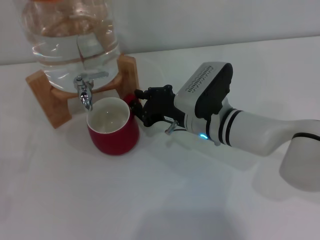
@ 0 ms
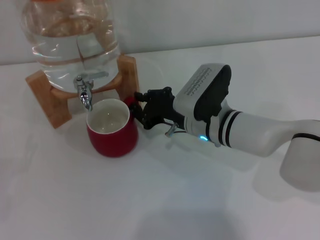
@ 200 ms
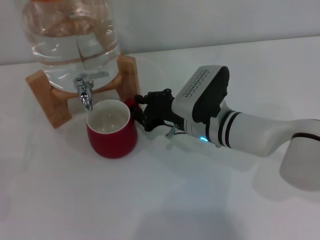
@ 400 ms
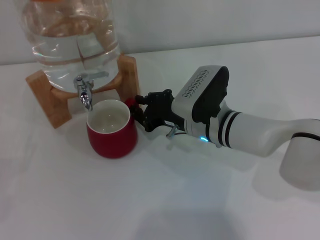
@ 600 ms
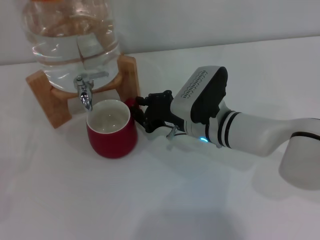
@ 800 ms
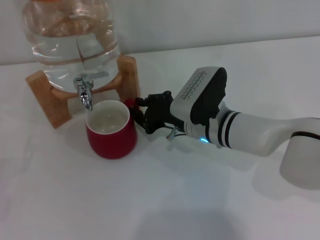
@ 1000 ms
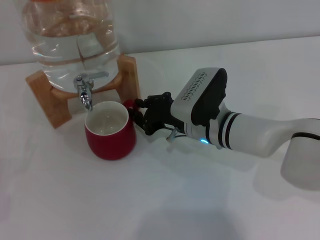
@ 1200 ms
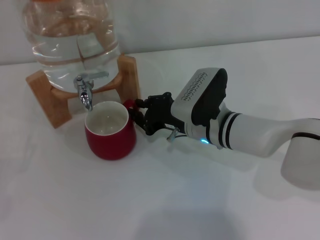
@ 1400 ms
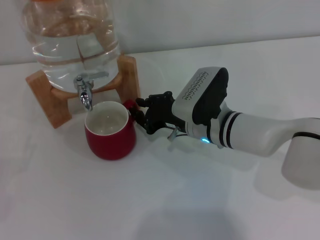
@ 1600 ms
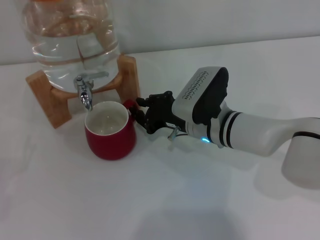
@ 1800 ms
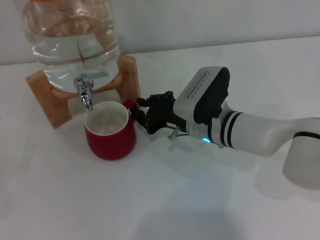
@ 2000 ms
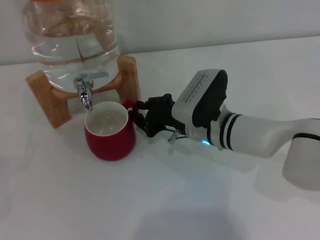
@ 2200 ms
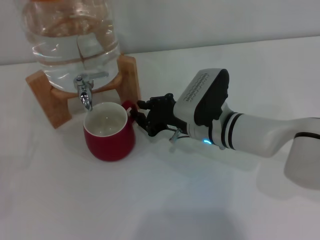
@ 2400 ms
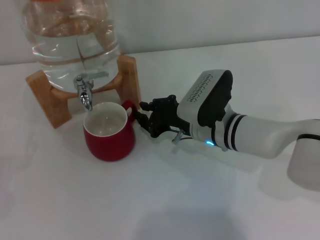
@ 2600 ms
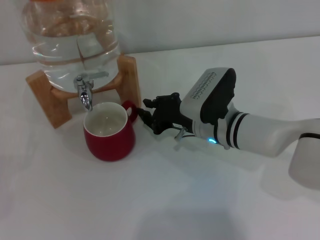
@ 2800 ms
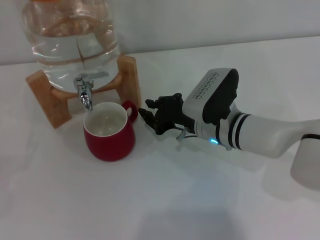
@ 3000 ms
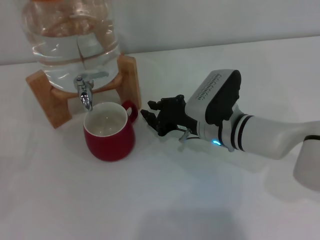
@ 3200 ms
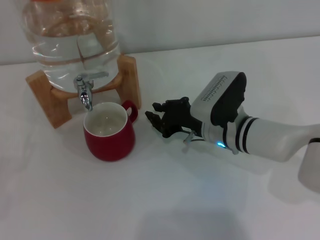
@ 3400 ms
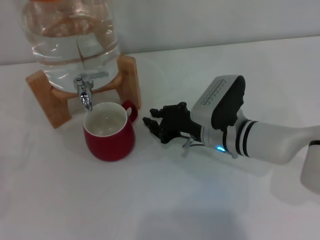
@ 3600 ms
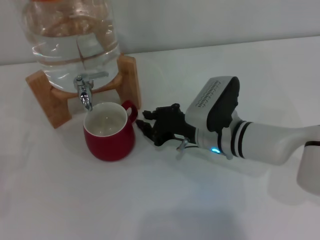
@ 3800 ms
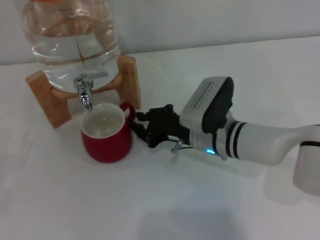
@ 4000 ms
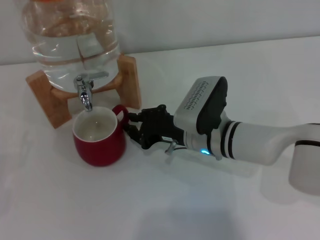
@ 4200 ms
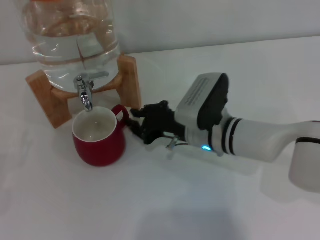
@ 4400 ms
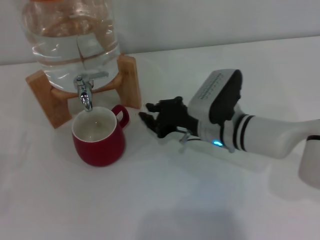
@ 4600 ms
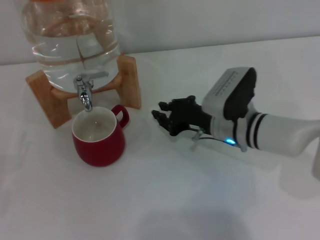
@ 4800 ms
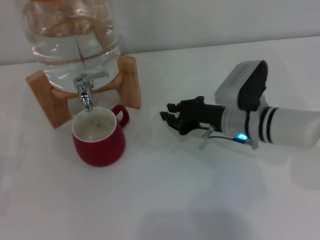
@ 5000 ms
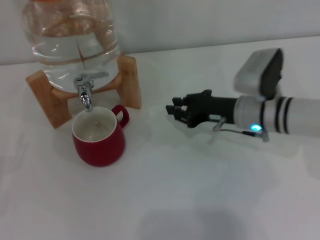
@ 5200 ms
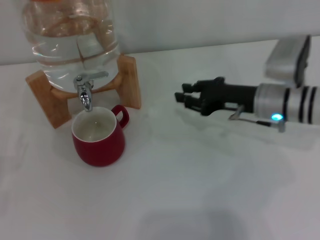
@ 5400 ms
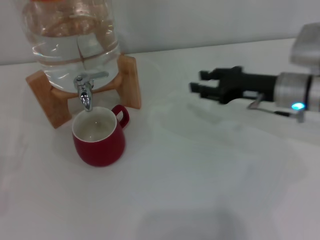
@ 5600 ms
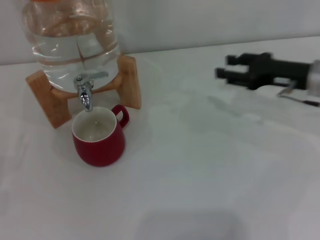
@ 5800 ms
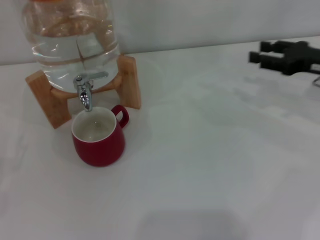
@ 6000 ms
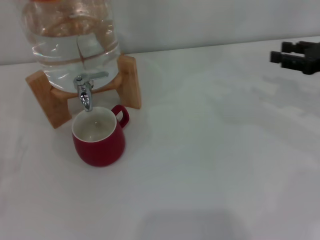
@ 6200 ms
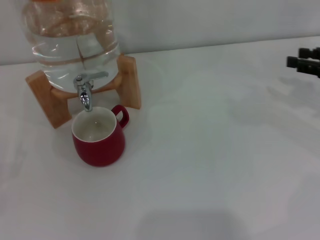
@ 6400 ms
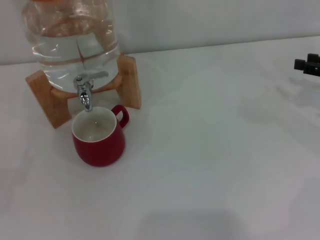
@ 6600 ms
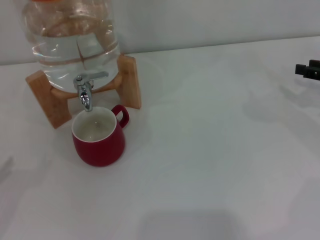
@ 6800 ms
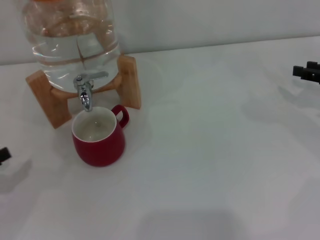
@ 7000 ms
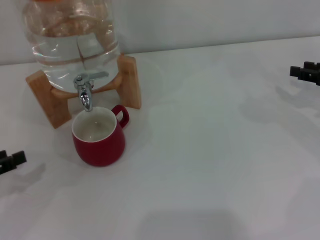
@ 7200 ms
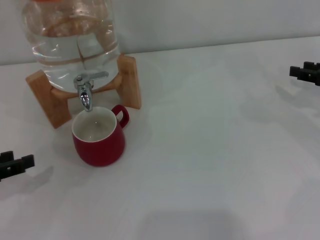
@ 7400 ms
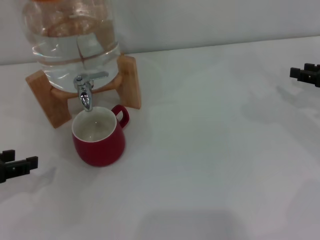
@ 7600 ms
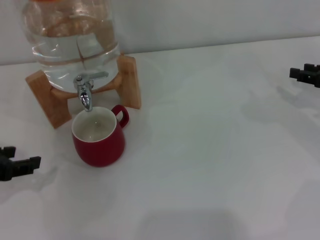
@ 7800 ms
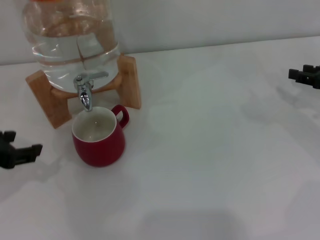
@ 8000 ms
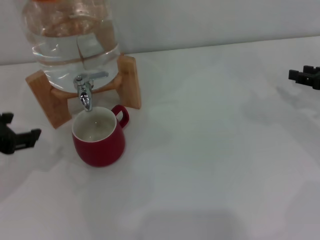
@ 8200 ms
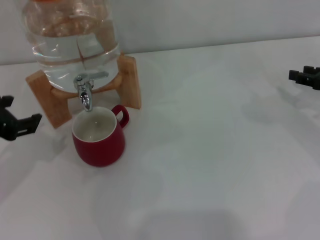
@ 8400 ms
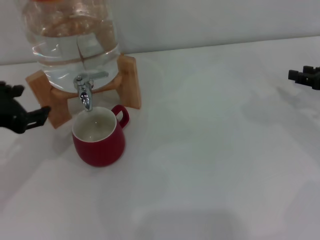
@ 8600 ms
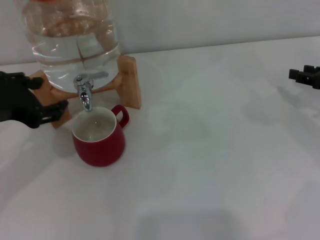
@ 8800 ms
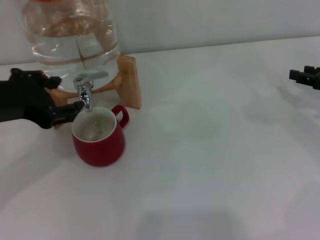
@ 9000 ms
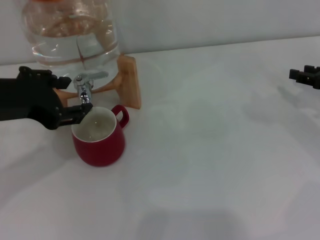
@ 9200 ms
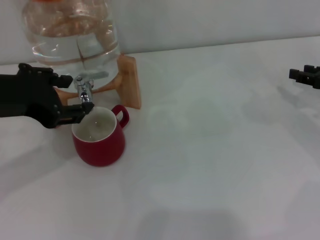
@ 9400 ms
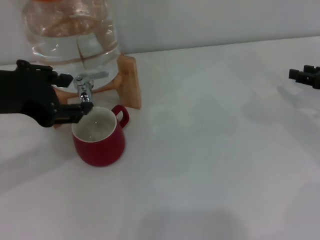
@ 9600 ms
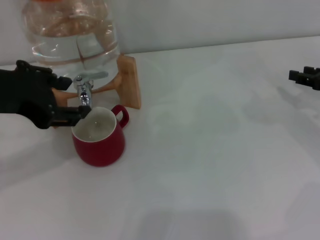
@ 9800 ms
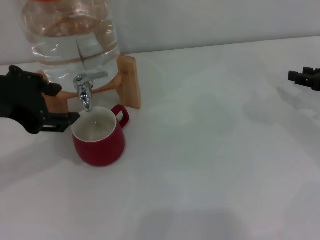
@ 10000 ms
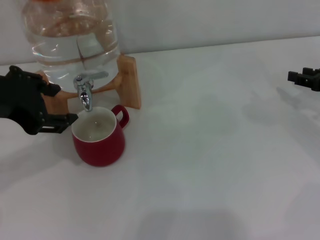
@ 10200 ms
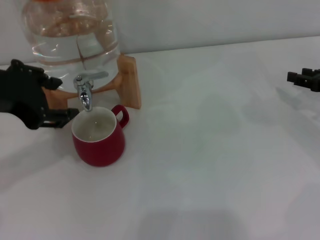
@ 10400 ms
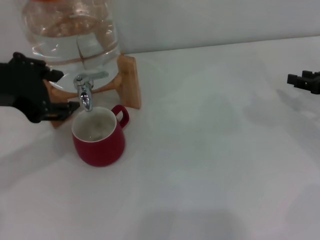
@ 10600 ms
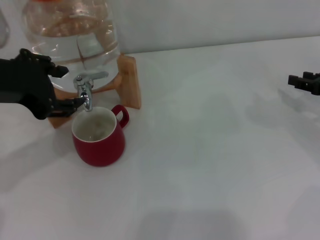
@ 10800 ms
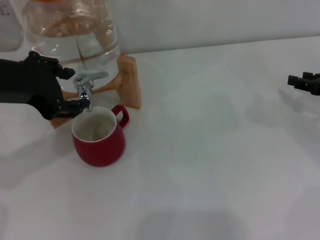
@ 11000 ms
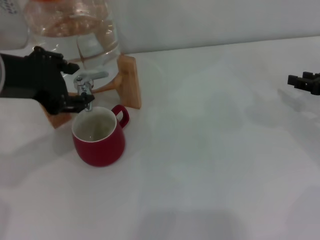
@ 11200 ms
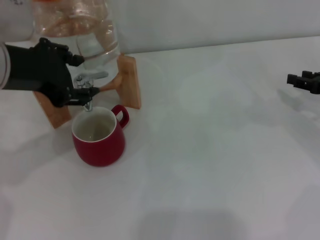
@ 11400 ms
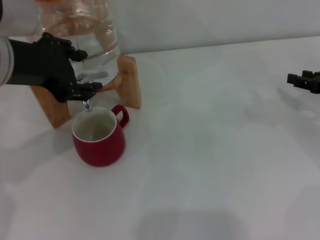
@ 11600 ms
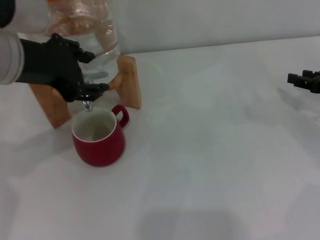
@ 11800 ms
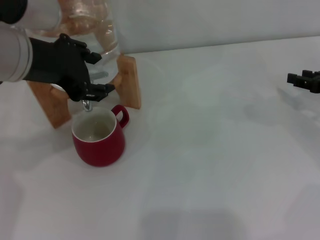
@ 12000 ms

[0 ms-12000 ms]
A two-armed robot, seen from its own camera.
Task of the whole recording: the right gripper pick up the red cup and place it horizontally under the faucet, the left gripper turn on the faucet to fill the cup, and then turn off the faucet.
Step, 0 ms to 4600 ms: Move the cup beneath the water dispenser nozzle with the right gripper.
0 ms to 1600 ms: Both grippers stay put.
1600 ms to 4400 ms: The grippers stay close to where they were, moving slightly.
4400 ms to 6000 ms: The right gripper moves to the right, some 25 cm, and opens up.
6000 ms to 7600 ms: The right gripper shifts by approximately 5 cm. The left gripper heads upward and to the right, covering about 15 cm.
7600 ms to 9000 ms: The left gripper travels to the right and upward by some 15 cm.
9000 ms to 10400 ms: The grippers stay close to where they were, moving slightly.
10400 ms to 12000 ms: The left gripper moves some 5 cm.

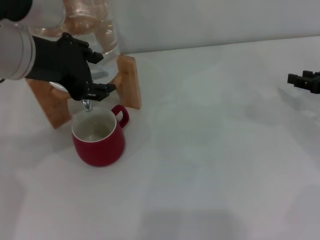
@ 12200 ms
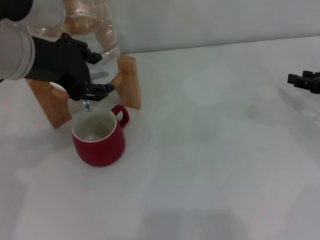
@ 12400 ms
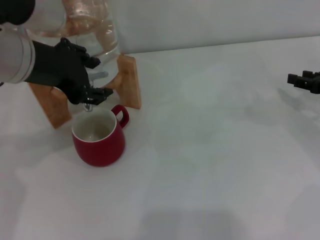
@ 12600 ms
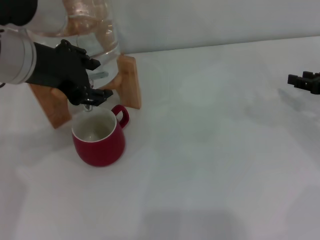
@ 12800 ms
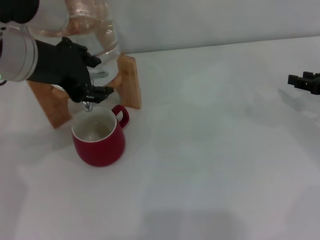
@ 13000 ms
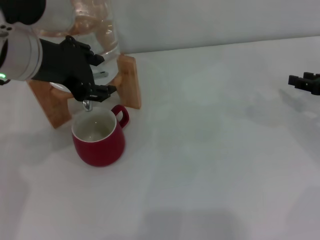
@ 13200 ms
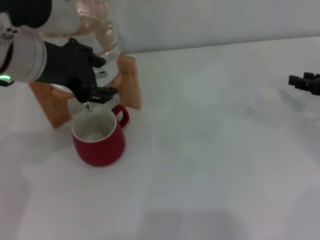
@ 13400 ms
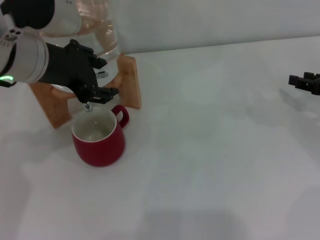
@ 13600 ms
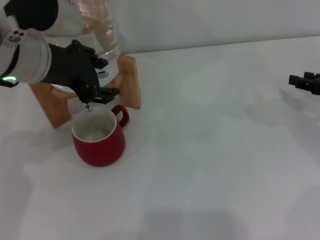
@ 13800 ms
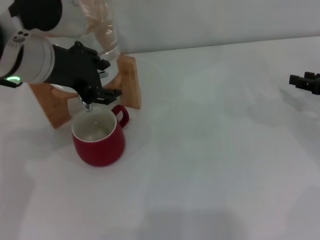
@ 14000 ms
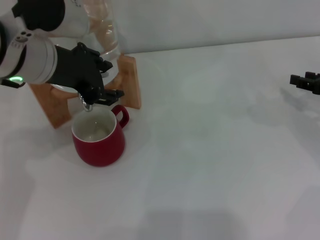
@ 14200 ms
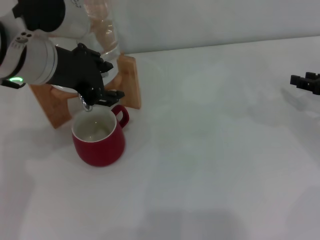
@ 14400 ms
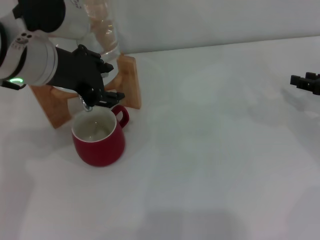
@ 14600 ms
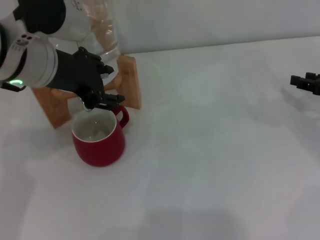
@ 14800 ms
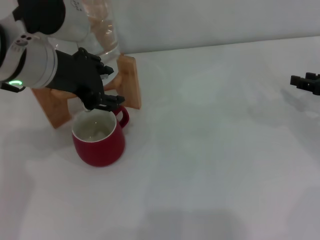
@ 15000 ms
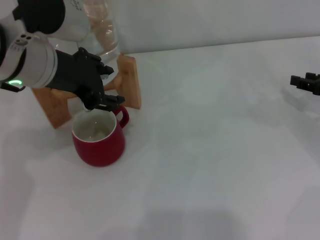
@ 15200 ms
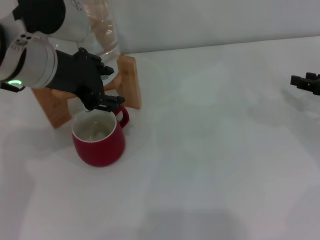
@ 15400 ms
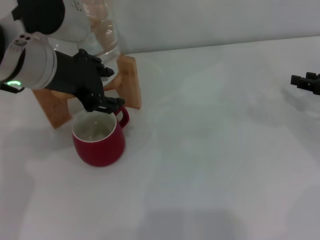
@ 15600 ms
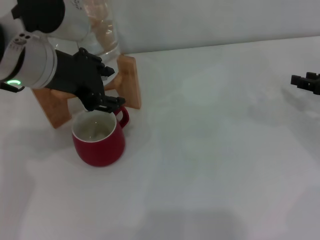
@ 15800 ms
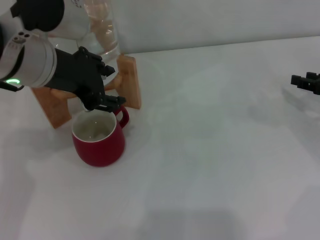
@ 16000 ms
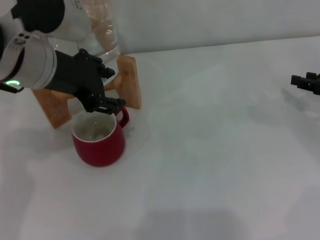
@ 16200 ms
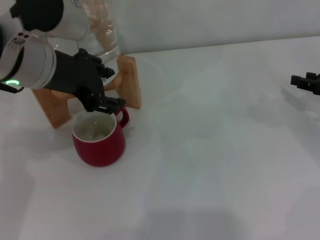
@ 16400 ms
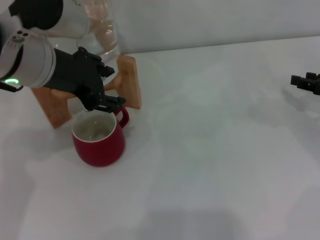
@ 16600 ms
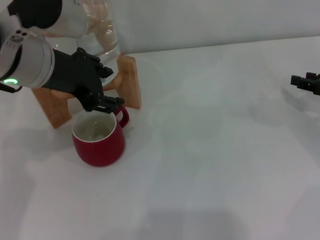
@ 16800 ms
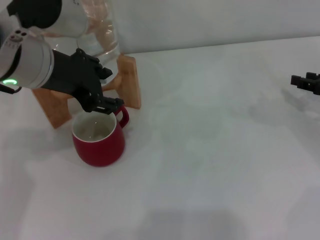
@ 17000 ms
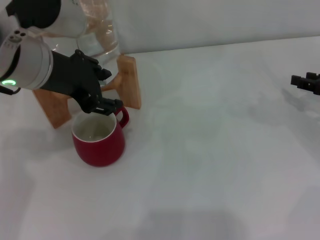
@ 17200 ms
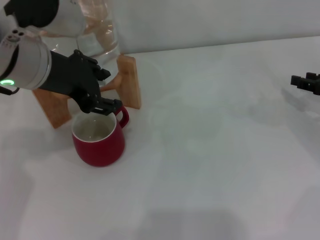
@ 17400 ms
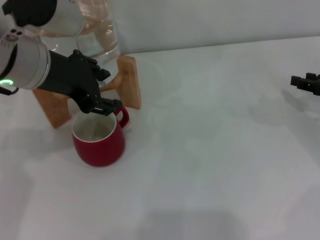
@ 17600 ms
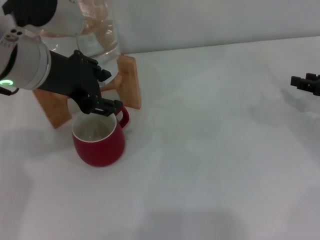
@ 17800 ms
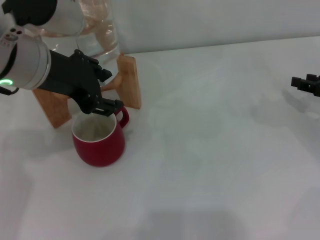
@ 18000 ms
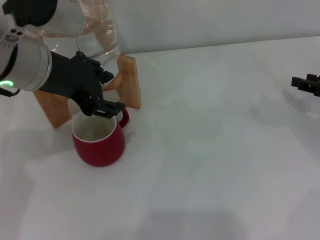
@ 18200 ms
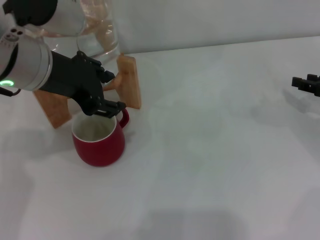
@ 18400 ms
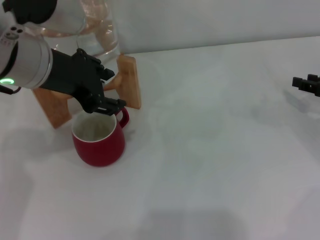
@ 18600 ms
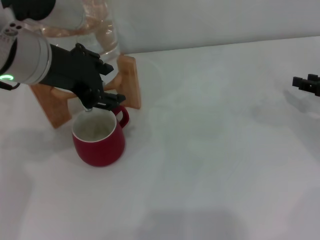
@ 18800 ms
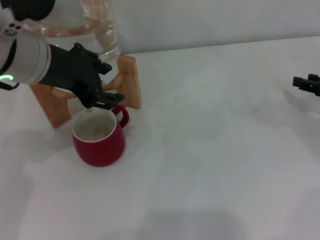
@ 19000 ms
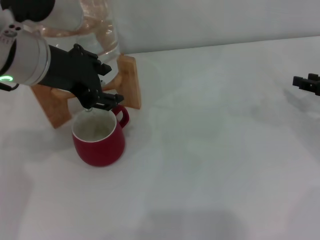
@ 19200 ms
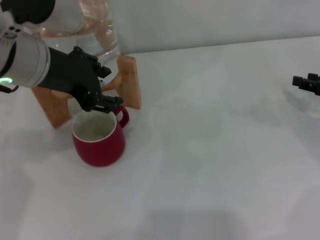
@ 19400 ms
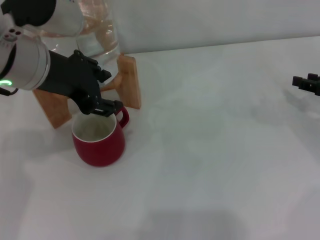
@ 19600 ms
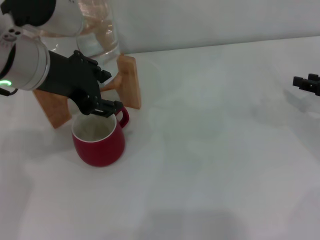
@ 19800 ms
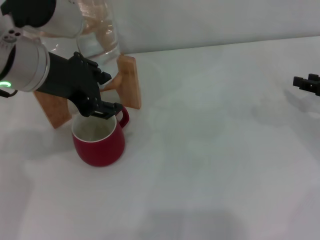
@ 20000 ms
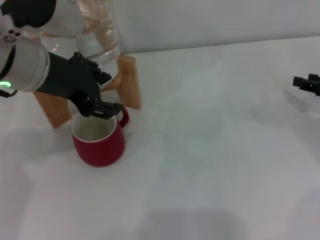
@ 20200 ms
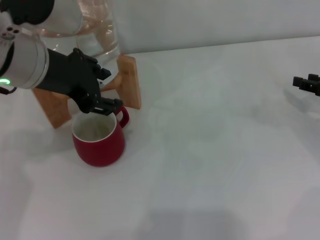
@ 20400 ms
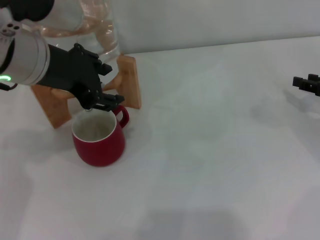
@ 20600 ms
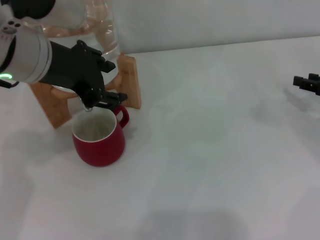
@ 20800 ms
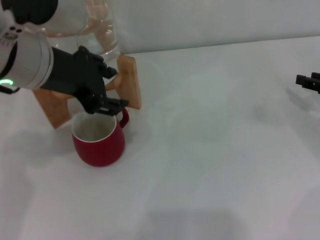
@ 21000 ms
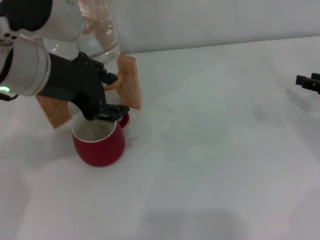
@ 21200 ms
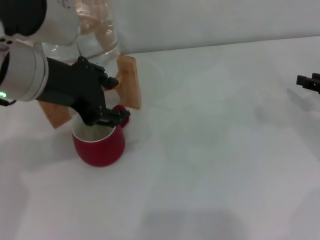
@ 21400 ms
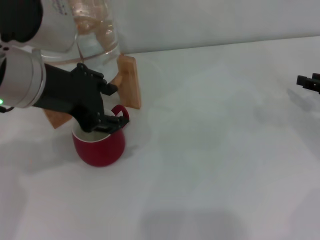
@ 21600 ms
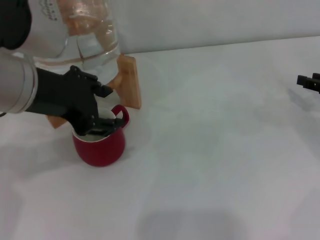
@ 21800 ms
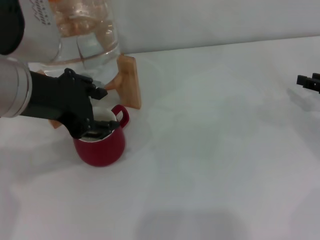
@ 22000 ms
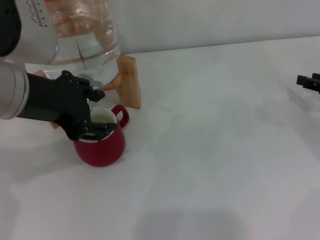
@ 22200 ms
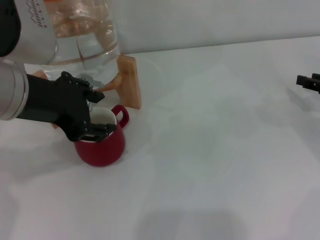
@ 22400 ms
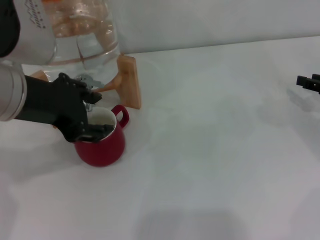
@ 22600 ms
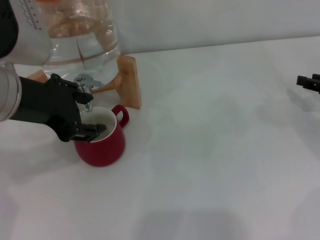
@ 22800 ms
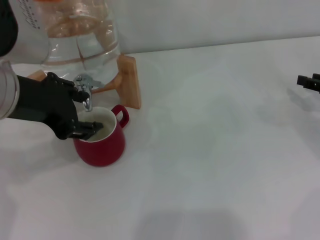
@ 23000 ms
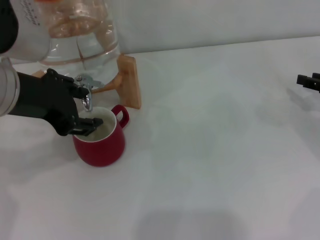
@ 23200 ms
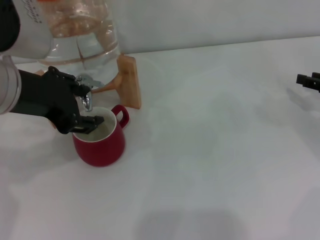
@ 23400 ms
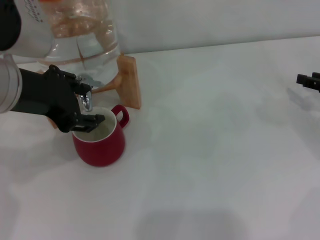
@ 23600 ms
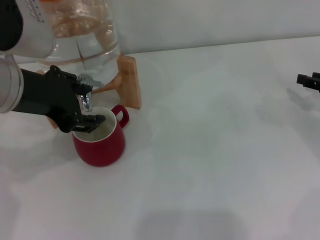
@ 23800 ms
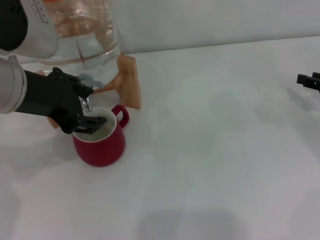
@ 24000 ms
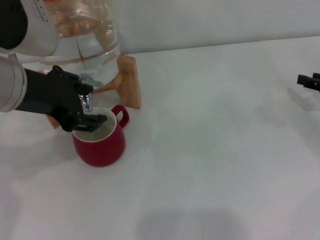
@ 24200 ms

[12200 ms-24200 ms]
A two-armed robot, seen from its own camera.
Task of the whole recording: the right gripper pick up the red cup and place it horizontally under the faucet, the left gripper turn on the faucet to fill the cup, and then turn off the faucet.
Step, 12200 ms to 23400 ms: Open the dispenser valve and fill the cup with water with the left gripper.
12200 ms to 13800 ms: The grippers move only a little.
13800 ms to 16600 ms: The two grippers keep their place.
16600 ms to 19800 ms: Neither gripper changes place.
19800 ms to 22600 ms: The grippers stay close to where they were, moving slightly.
22600 ms to 24200 ms: Both grippers stay put.
